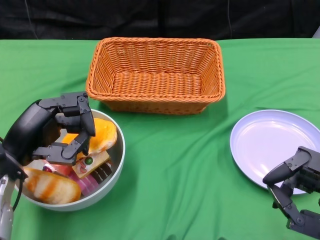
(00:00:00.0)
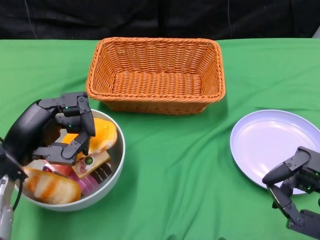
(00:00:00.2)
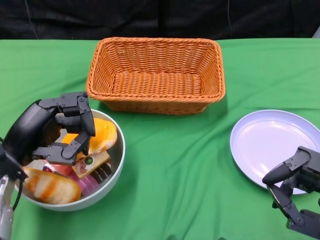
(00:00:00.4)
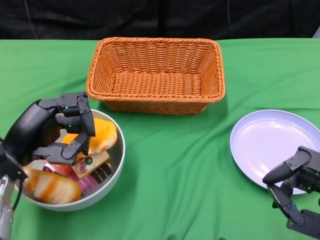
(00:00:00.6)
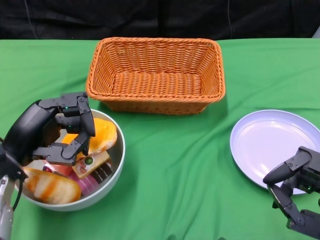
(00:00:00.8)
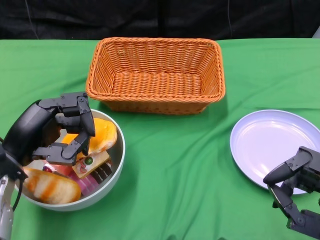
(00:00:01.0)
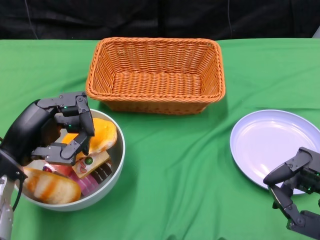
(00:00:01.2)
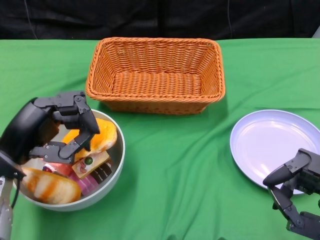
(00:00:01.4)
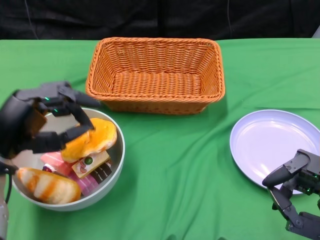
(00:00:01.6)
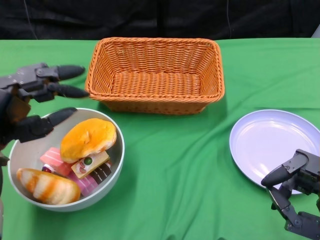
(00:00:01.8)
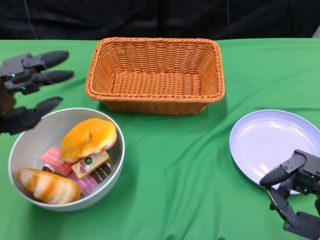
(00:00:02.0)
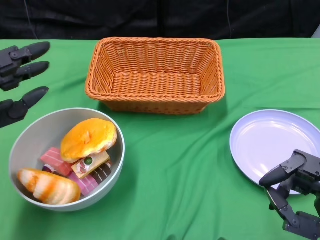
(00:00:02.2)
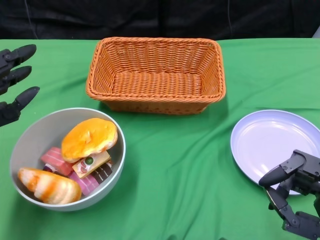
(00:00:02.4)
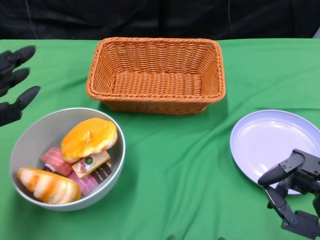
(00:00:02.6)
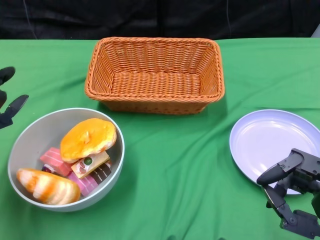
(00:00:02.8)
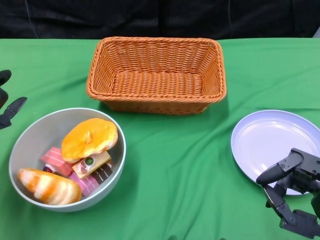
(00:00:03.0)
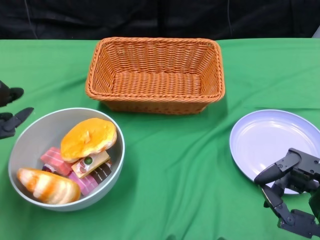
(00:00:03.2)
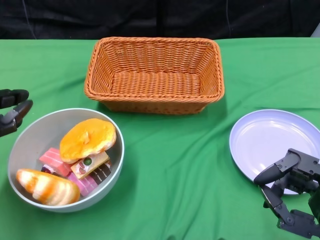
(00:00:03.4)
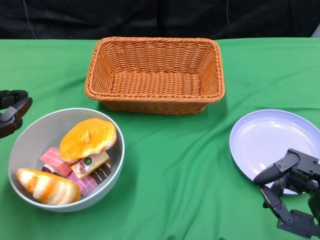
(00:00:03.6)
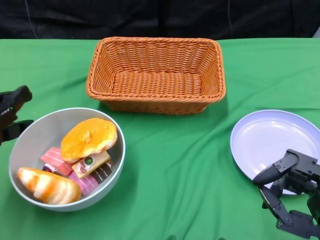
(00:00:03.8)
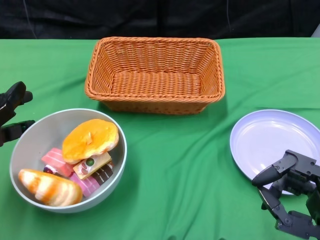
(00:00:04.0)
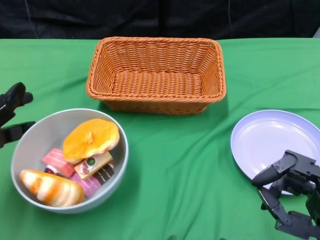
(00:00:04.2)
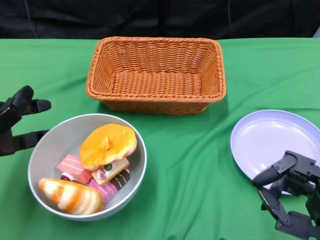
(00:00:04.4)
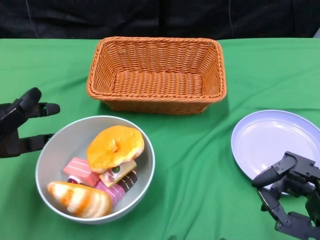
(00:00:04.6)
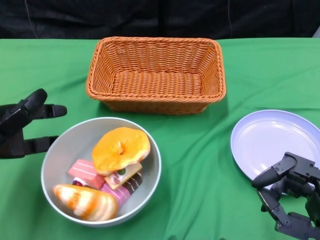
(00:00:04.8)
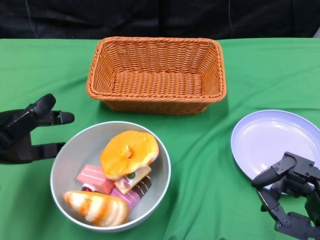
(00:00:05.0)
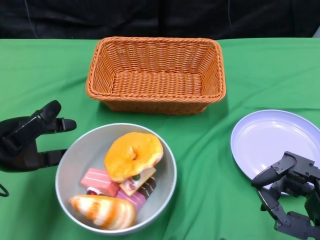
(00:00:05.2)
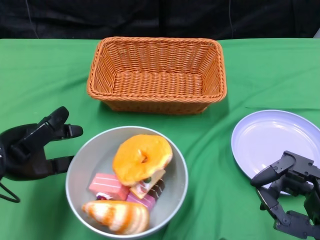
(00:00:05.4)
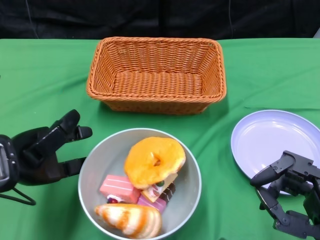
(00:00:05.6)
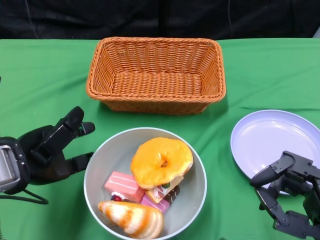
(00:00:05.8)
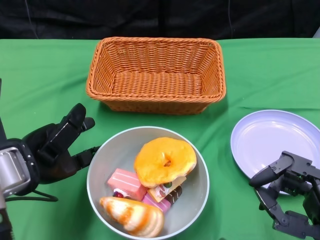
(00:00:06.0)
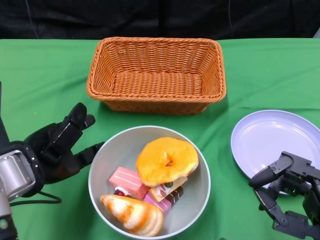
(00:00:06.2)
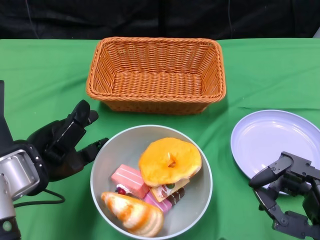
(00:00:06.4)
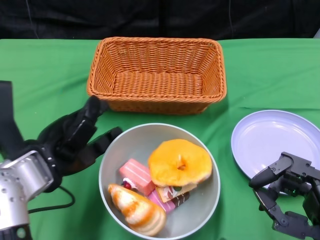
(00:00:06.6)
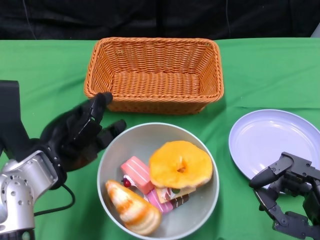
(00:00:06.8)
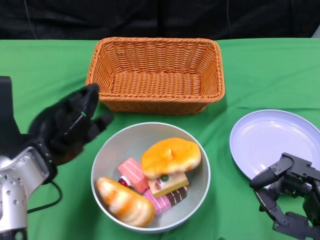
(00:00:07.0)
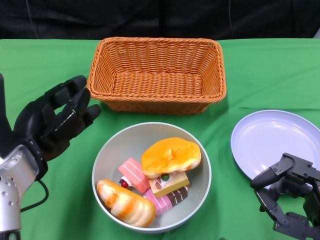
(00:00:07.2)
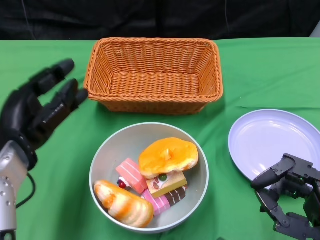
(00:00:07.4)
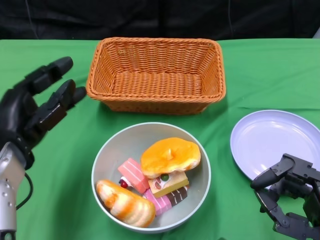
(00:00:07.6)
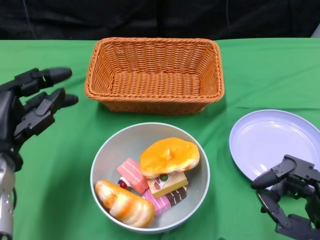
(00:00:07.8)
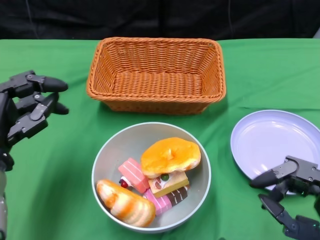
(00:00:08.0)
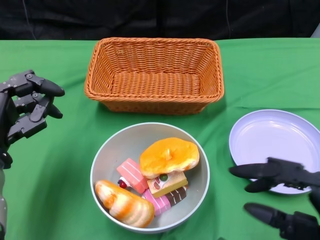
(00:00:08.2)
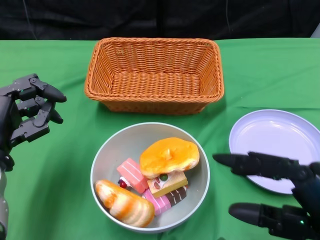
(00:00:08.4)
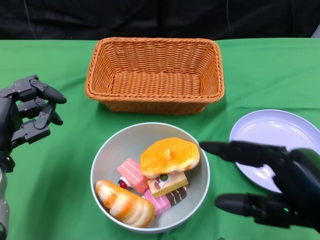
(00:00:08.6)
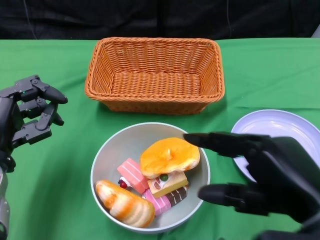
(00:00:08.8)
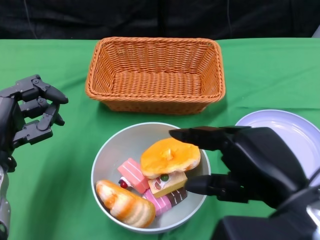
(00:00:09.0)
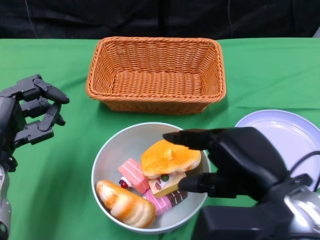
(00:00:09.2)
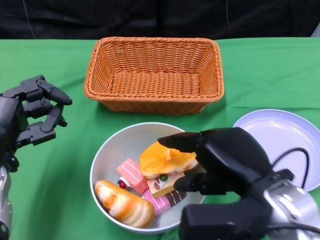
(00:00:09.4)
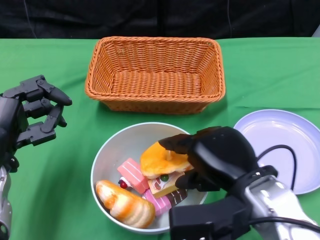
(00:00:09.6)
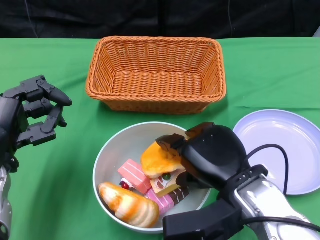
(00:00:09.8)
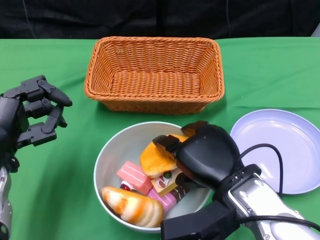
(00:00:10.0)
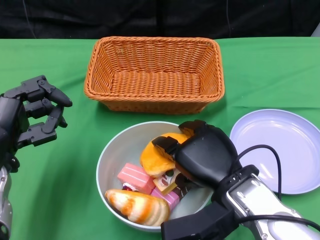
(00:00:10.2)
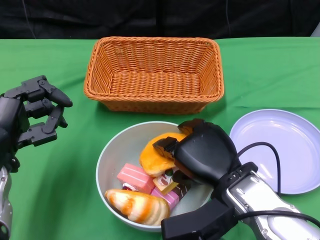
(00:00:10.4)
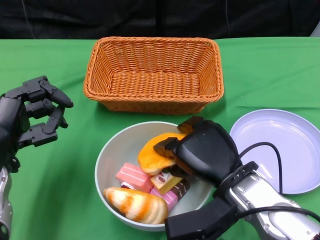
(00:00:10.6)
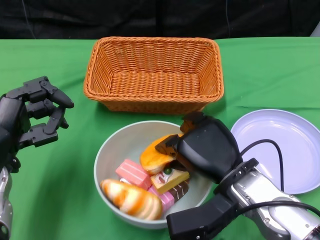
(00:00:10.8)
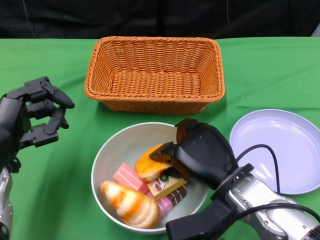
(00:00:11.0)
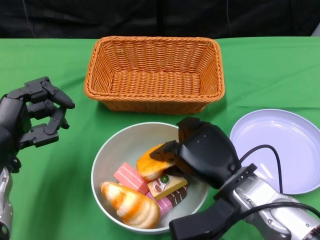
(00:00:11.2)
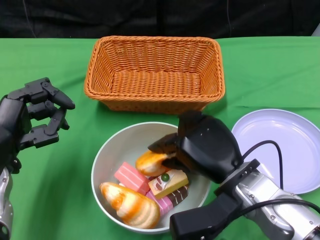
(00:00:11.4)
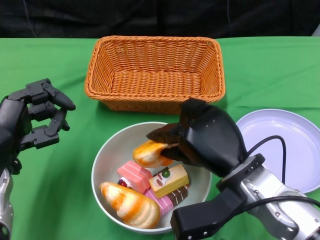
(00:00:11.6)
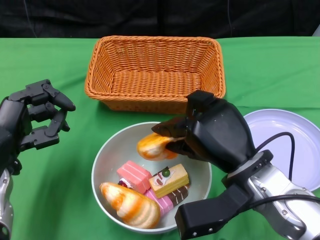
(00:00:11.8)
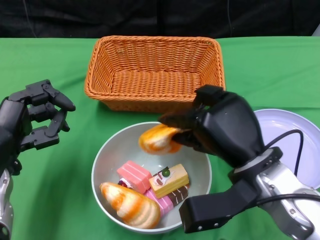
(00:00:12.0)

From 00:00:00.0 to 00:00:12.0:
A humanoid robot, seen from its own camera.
Step, from 00:00:00.0 to 00:00:07.4: Push the bowl to the center of the table using the left gripper.
From 00:00:01.6 to 00:00:03.0: The left hand ends up approximately 5 cm from where it was.
From 00:00:04.4 to 00:00:06.0: The left hand is displaced to the right and backward by about 10 cm.
From 00:00:07.6 to 00:00:09.0: The right hand heads upward and to the left, covering about 10 cm, while the left hand shifts about 5 cm downward.
From 00:00:09.0 to 00:00:10.4: The right hand heads downward, forward and to the left, covering approximately 10 cm.

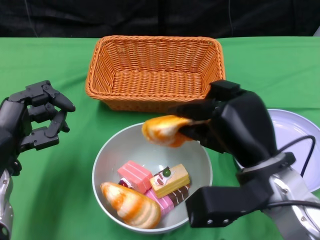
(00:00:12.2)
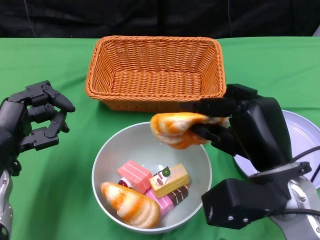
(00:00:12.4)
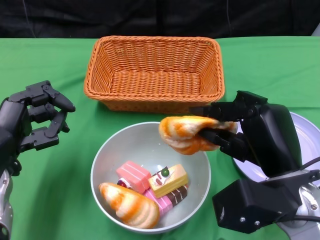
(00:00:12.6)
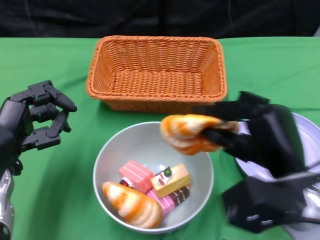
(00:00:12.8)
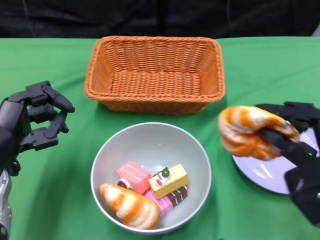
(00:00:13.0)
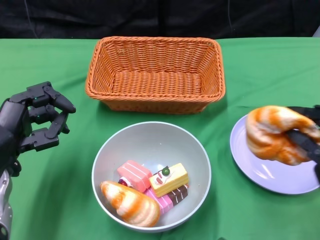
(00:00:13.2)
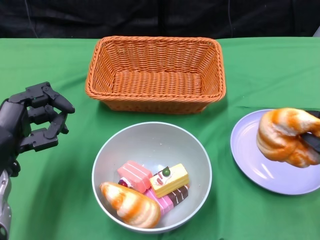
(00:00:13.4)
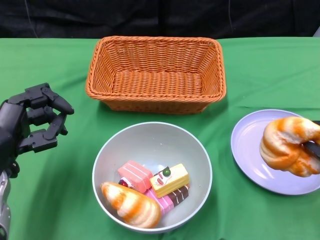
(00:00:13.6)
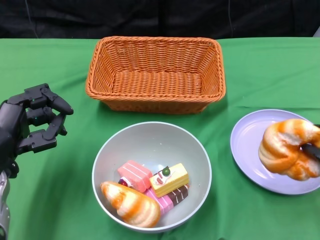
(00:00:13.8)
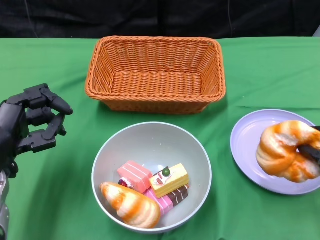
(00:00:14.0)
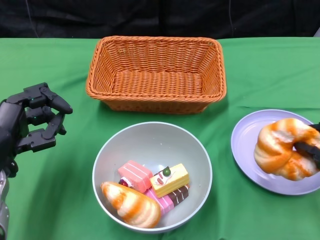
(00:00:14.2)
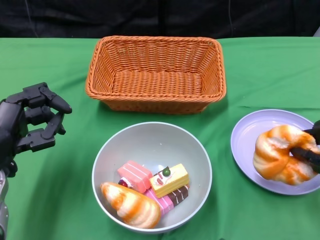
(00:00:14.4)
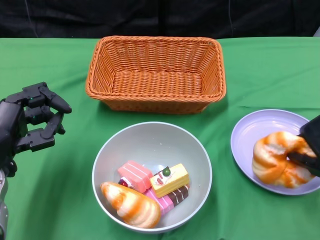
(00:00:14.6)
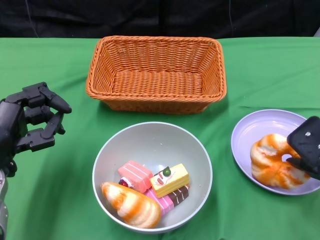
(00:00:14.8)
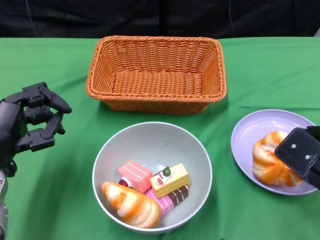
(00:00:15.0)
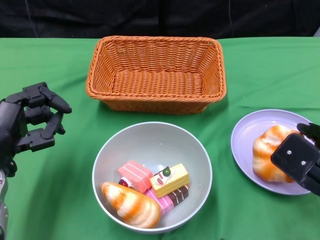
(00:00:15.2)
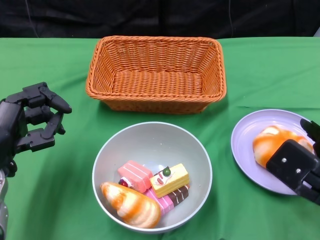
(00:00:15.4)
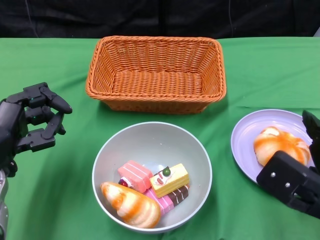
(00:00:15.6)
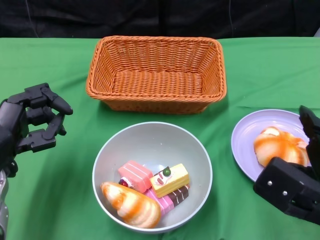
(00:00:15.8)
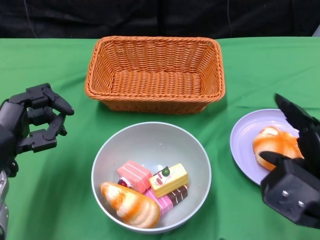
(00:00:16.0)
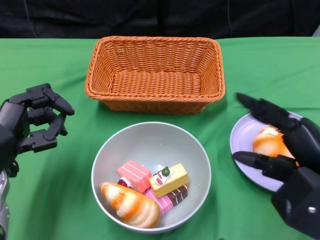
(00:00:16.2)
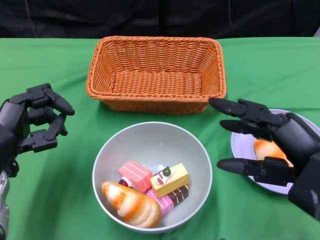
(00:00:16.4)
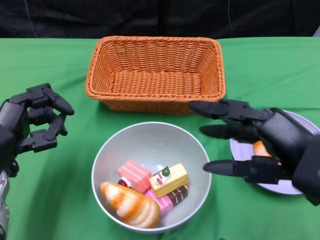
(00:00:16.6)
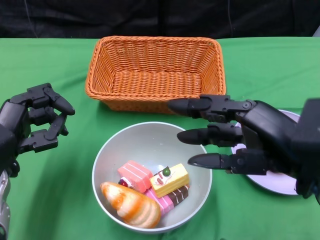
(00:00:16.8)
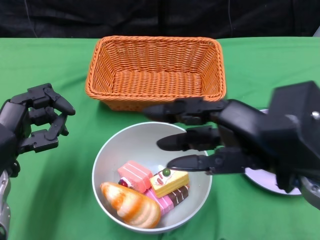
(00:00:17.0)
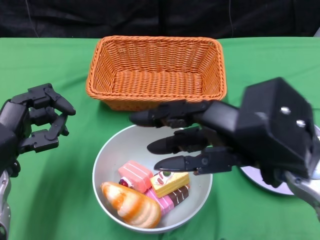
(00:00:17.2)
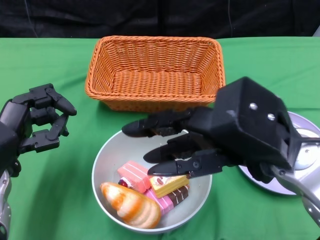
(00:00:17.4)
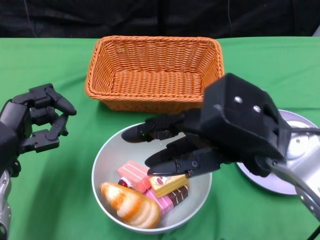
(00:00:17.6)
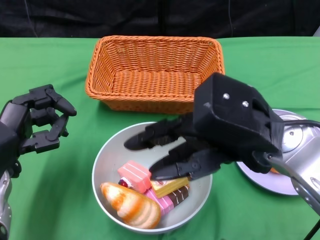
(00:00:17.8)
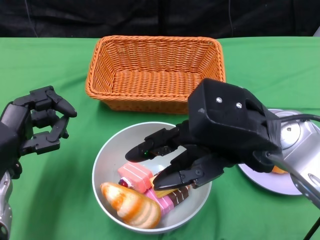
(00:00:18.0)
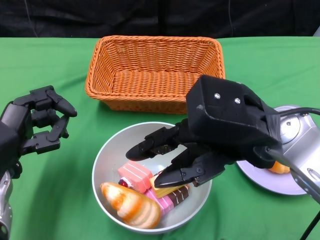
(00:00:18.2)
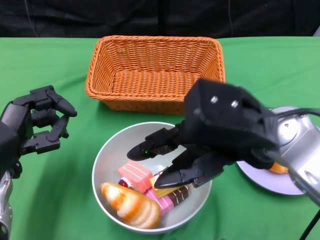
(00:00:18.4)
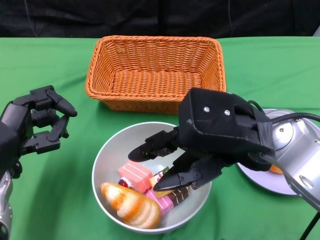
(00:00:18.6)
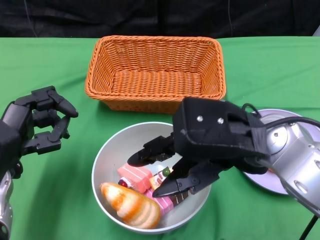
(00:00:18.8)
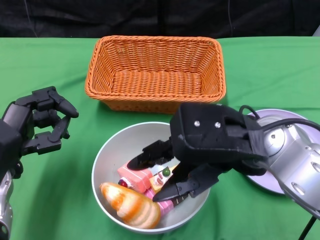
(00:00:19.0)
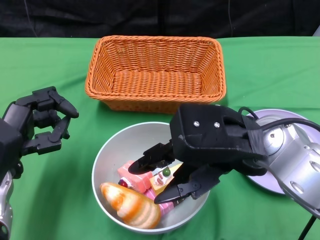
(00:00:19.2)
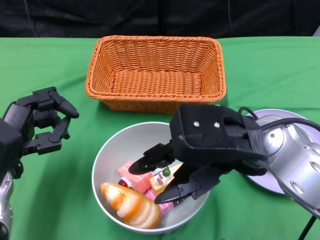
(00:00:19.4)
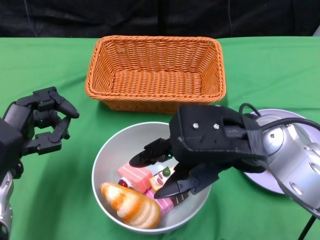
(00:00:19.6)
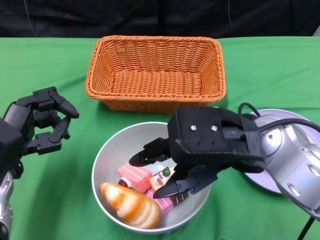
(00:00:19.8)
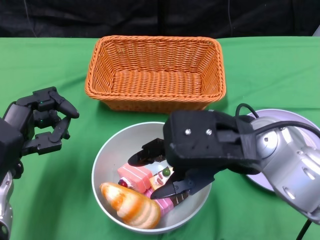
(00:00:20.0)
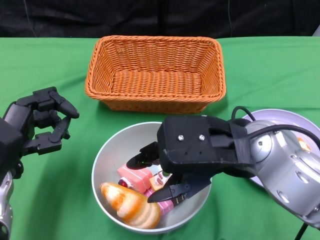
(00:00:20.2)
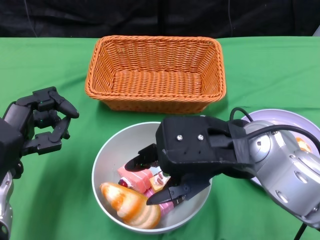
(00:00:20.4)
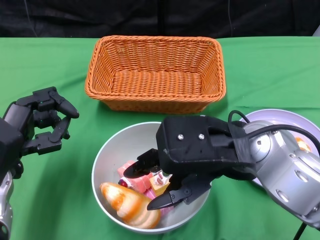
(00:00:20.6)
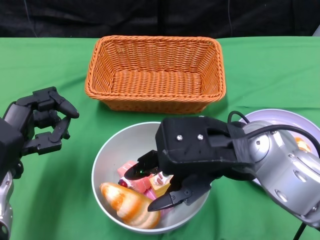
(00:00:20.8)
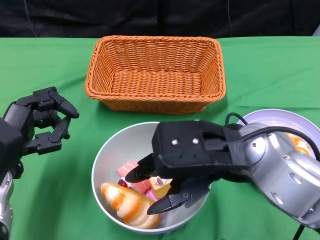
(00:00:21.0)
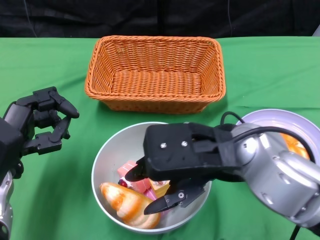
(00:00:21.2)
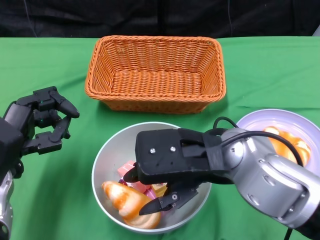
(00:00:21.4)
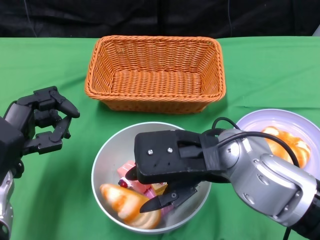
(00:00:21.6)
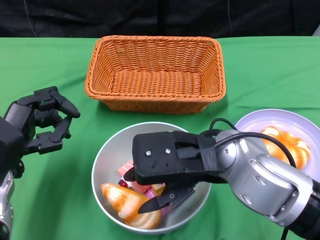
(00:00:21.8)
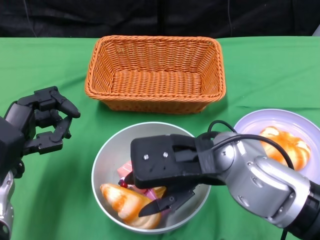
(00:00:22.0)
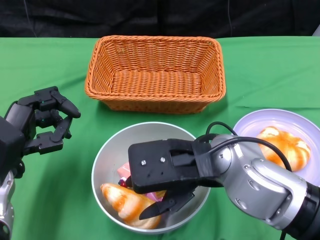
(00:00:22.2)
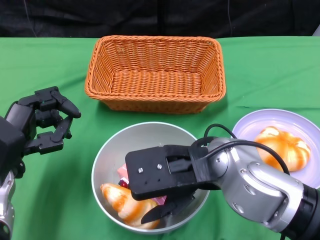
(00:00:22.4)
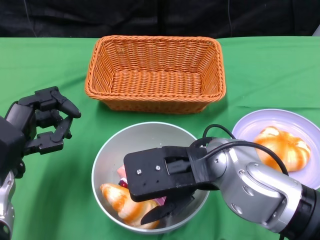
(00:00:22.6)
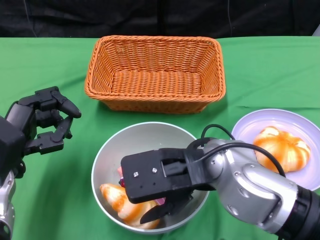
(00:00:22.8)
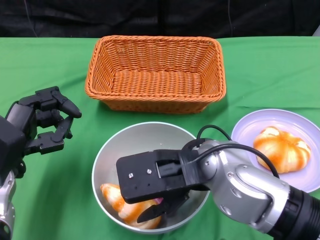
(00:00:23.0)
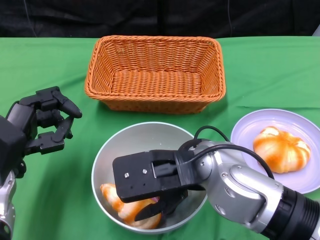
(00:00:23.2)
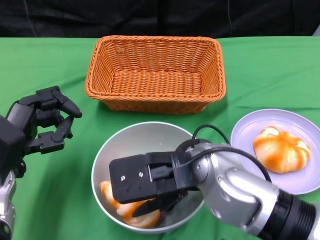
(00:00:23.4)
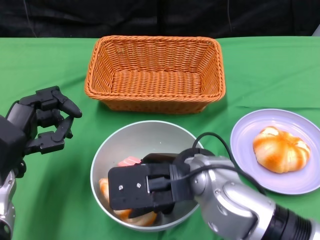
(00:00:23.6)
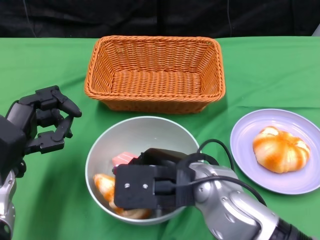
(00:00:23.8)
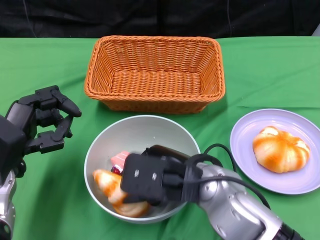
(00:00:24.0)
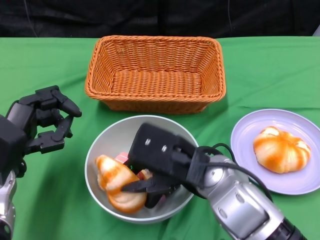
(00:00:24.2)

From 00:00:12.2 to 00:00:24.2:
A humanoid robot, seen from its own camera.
From 00:00:12.2 to 00:00:13.8: The right hand shifts some 15 cm to the right.
From 00:00:15.2 to 00:00:16.6: The right hand travels upward by approximately 10 cm.
From 00:00:16.6 to 00:00:18.2: The right hand is displaced to the left and forward by about 10 cm.
From 00:00:18.2 to 00:00:21.2: The hands stay close to where they were, moving slightly.
